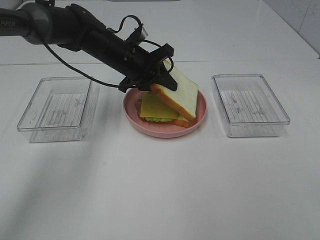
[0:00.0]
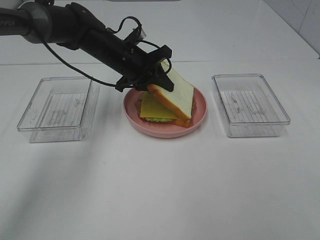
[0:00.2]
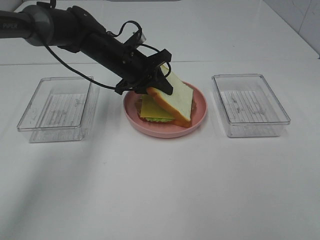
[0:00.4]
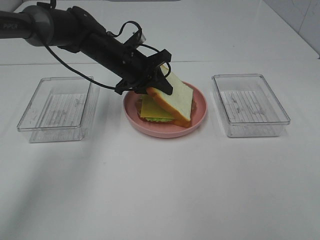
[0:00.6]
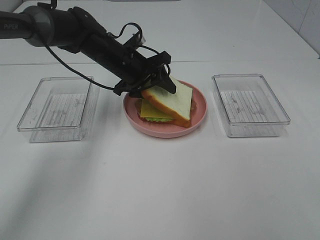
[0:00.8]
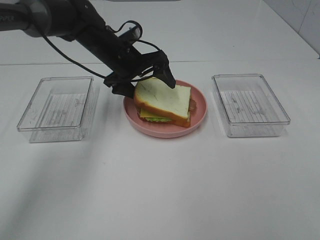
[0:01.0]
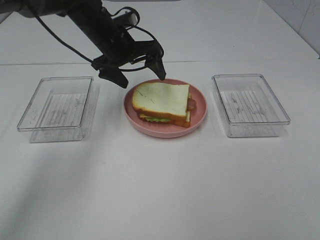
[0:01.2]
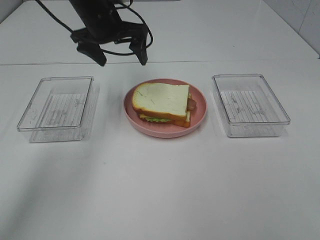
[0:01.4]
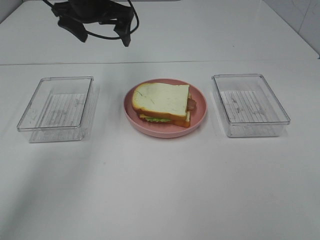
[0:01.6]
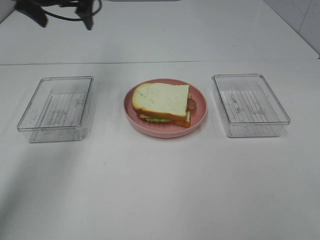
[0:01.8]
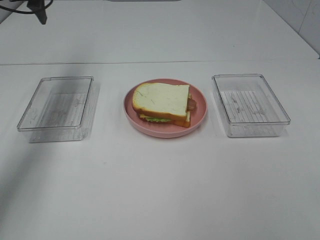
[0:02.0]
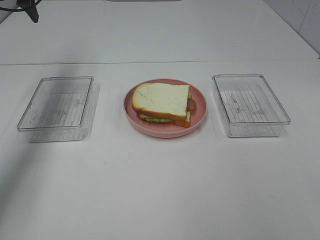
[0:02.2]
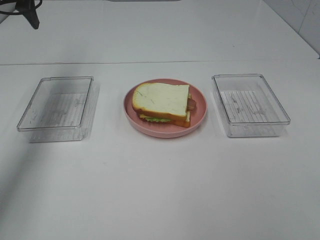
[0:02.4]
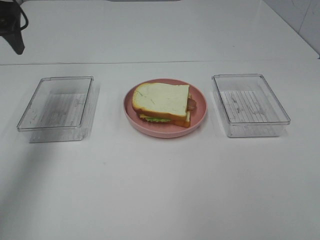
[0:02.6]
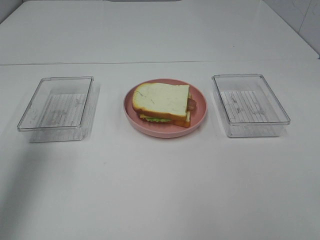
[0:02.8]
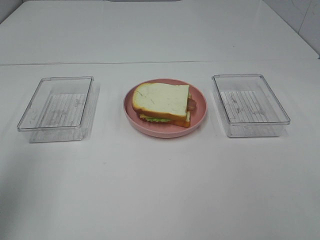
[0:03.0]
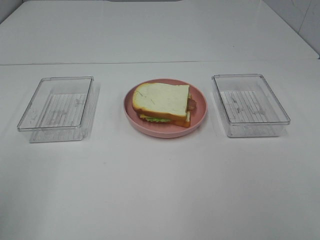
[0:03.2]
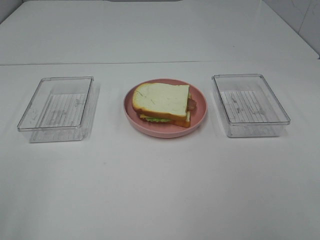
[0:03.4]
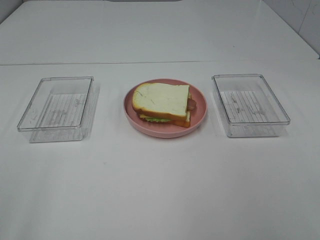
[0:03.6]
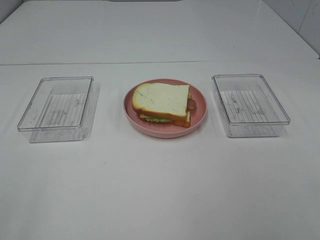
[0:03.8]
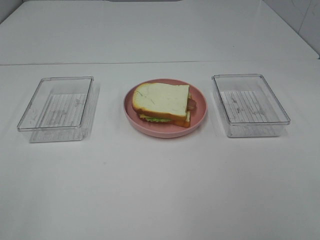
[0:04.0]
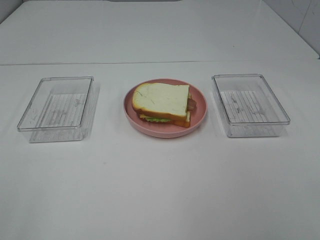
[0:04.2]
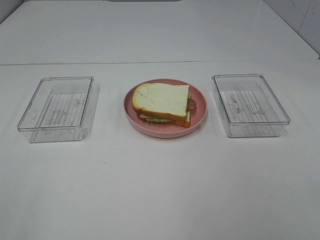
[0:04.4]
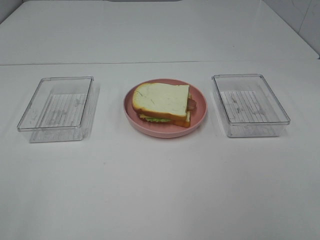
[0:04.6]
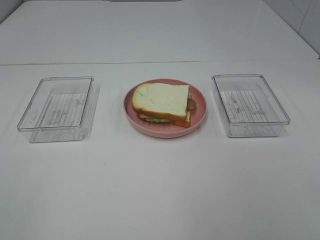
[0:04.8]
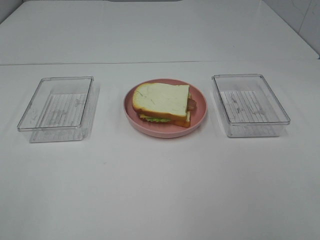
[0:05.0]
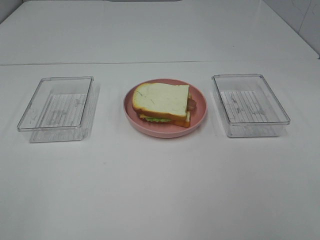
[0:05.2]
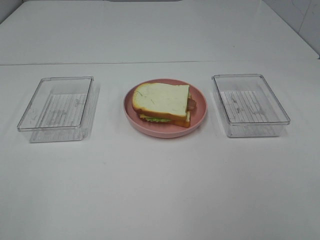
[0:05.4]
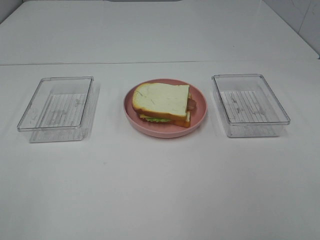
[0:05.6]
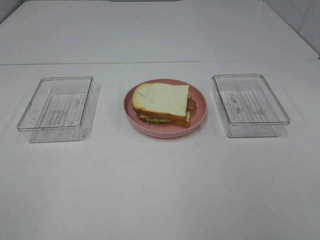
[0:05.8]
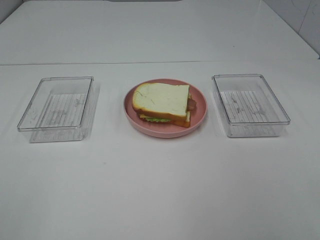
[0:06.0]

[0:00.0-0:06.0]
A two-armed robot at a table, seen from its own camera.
Task of the whole recording: Make sandwiches.
0.0 to 1.6 s: The left gripper travels upward and to the left by some 15 cm, and opens up.
1.6 to 3.0 s: The left gripper is displaced backward and to the left by about 35 cm.
3.0 to 4.4 s: The left gripper shifts about 15 cm backward.

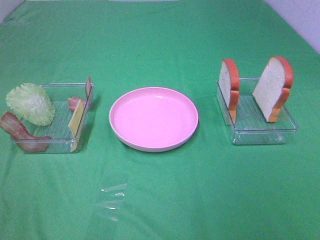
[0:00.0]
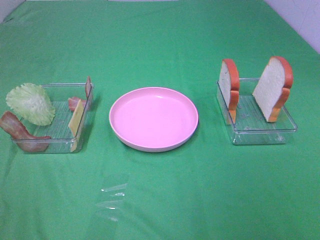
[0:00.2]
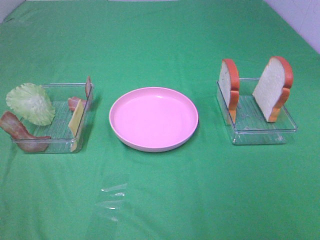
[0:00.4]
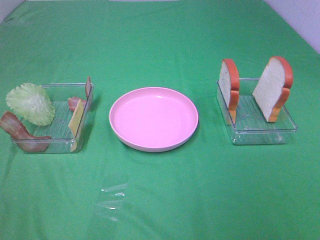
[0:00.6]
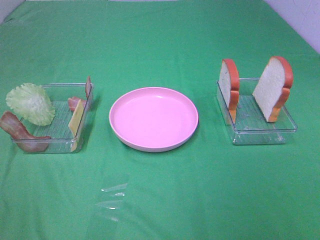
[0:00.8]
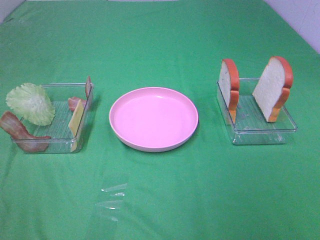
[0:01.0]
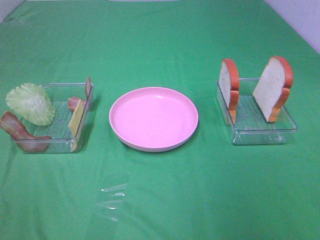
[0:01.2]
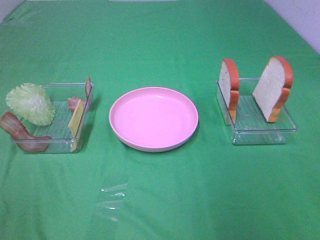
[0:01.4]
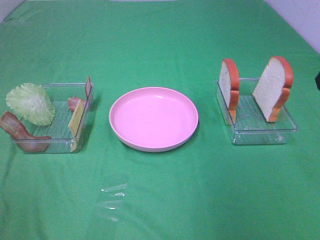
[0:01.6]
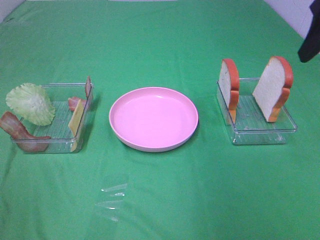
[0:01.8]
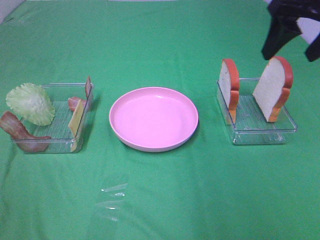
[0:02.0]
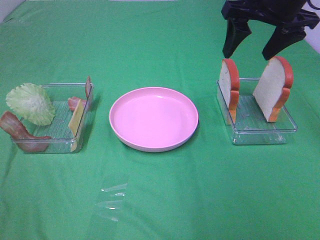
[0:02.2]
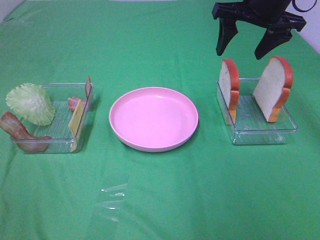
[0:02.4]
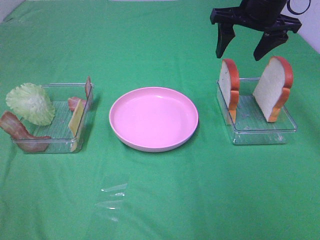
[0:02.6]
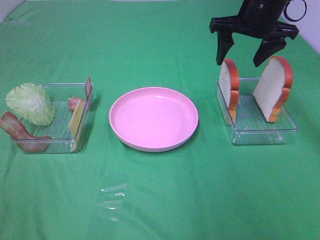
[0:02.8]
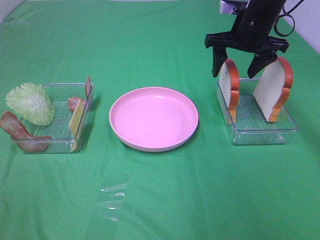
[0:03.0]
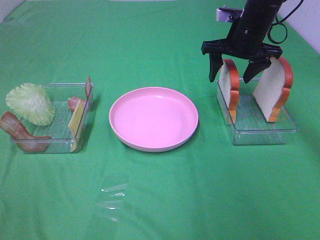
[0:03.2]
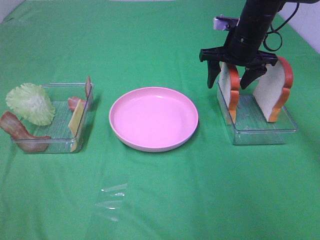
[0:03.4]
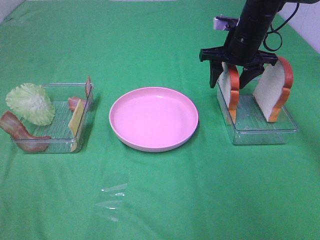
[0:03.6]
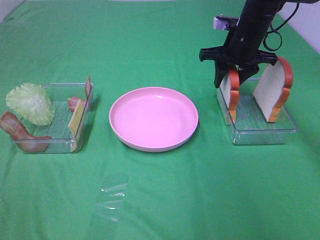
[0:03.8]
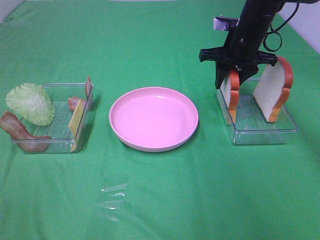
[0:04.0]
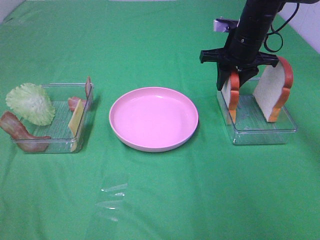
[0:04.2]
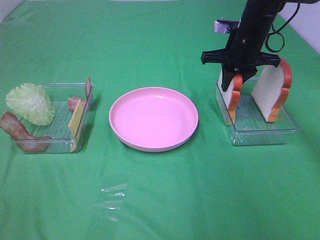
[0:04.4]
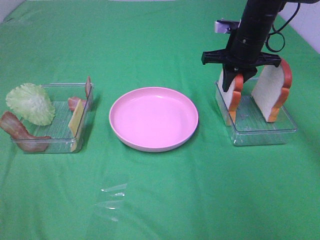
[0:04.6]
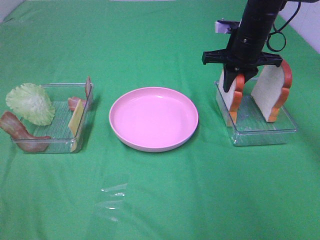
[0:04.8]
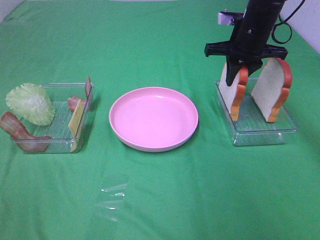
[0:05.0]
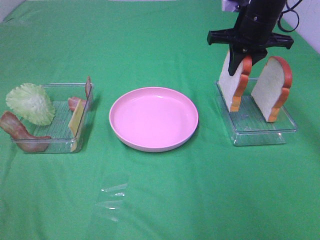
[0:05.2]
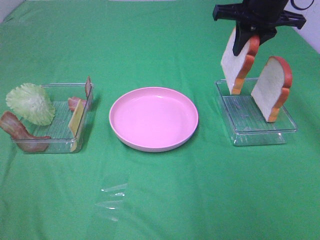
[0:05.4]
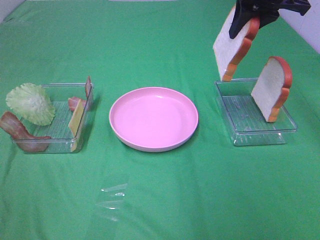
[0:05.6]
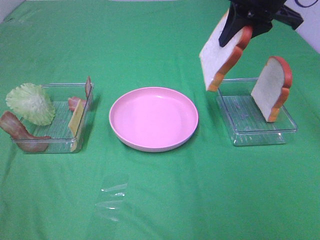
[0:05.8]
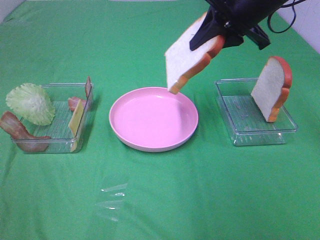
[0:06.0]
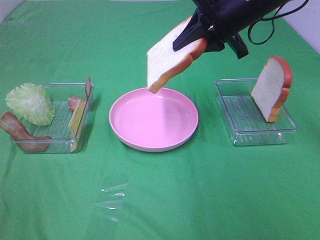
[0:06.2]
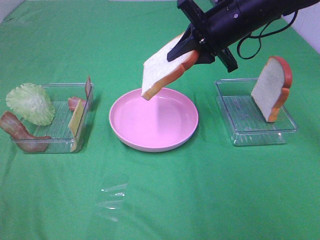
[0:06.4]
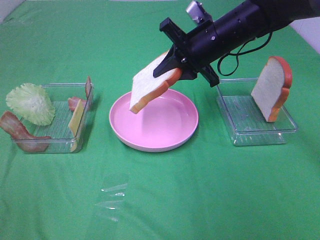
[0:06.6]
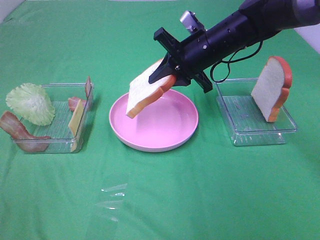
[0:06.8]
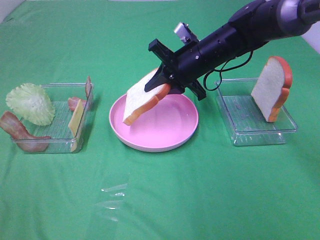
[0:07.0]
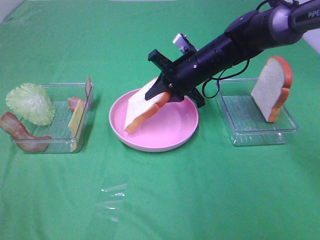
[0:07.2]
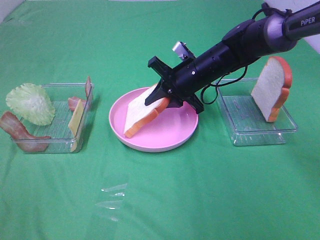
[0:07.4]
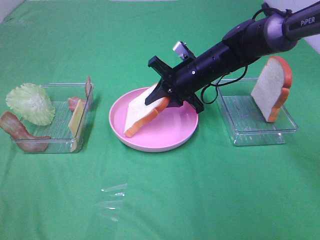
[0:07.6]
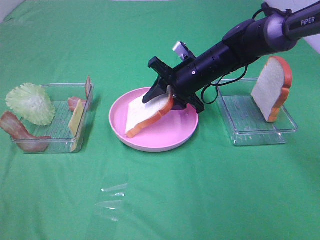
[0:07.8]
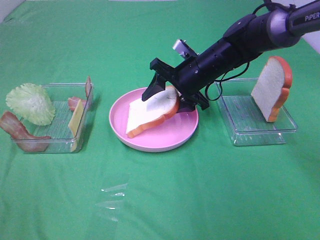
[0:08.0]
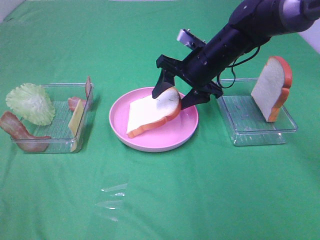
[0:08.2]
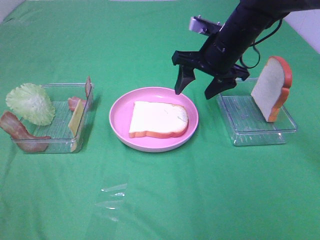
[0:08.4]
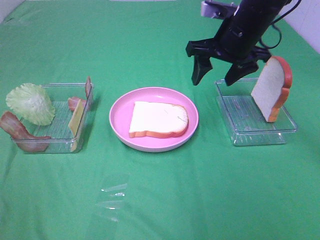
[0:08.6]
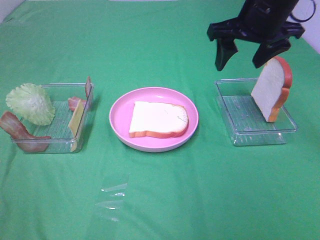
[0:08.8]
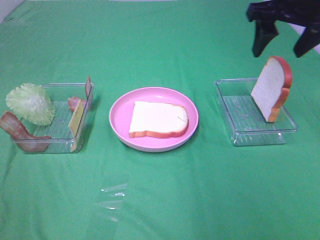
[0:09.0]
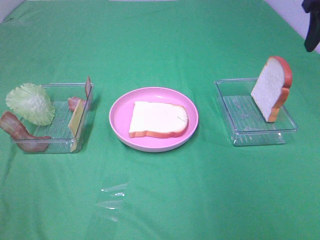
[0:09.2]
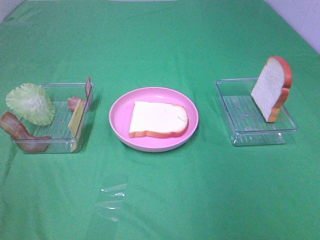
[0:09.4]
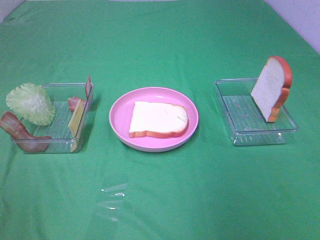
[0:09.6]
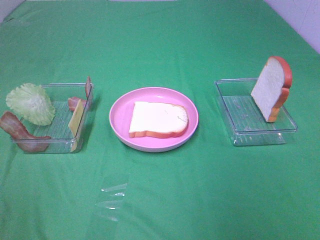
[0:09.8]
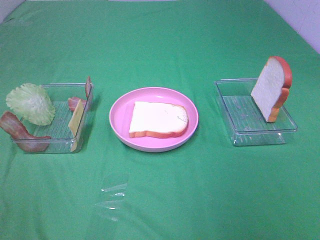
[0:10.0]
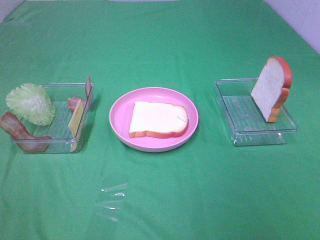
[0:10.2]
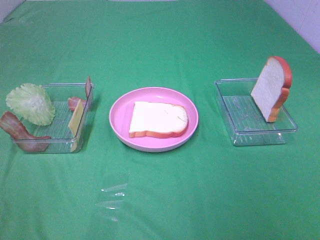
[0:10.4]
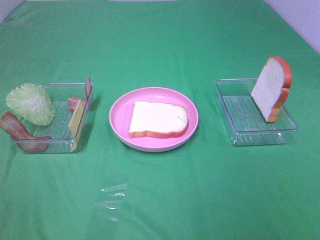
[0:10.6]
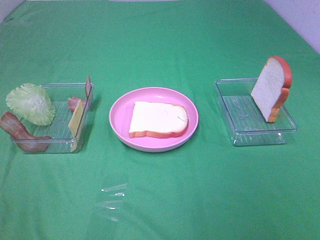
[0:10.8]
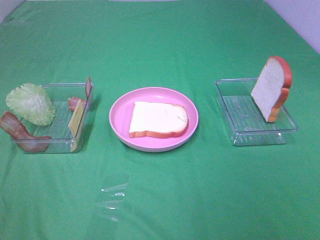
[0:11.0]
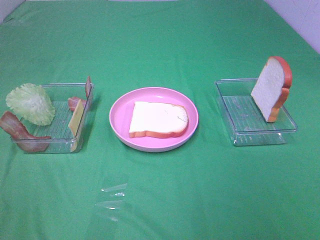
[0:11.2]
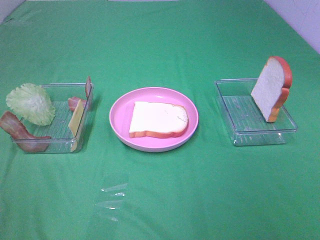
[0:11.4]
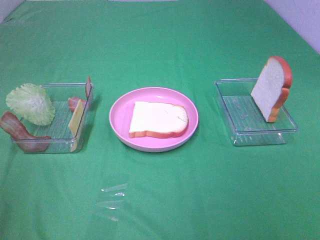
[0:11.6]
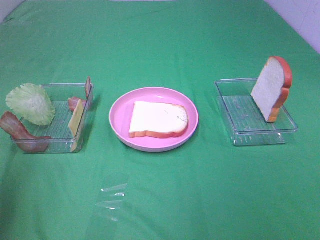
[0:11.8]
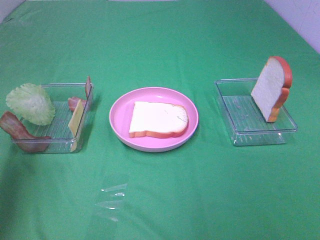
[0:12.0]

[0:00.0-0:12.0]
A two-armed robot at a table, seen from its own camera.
Task of the whole recording: Make sandwiches.
Step, 0.0 to 4.6 s: Right hand:grab the bread slice.
Step, 4.8 to 8.2 s: Right hand:place the bread slice on the plate.
1.6 to 3.0 s: The right gripper is displaced forward, downward and to the left by some 25 cm.
3.0 to 4.4 s: The right gripper closes.
4.4 to 6.0 s: The right gripper is displaced upward and backward by approximately 15 cm.
6.0 to 7.6 s: The right gripper goes about 15 cm downward.
7.6 to 9.0 s: The right gripper shifts about 25 cm upward and to the right, and opens.
9.0 to 10.4 s: The right gripper heads backward, covering some 35 cm.
10.4 to 12.0 s: The left gripper goes some 25 cm forward.

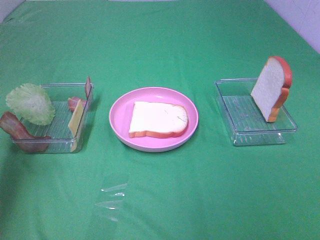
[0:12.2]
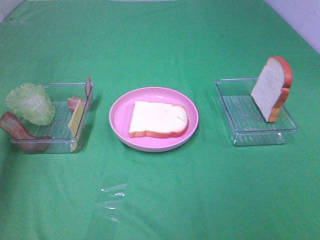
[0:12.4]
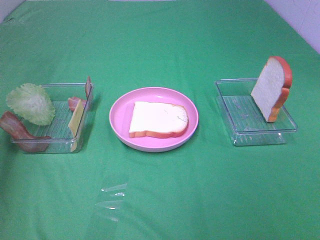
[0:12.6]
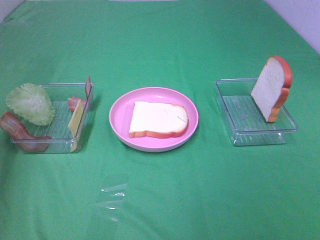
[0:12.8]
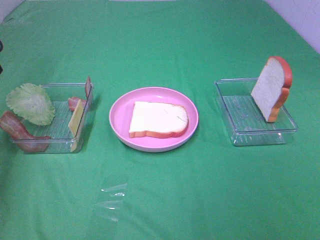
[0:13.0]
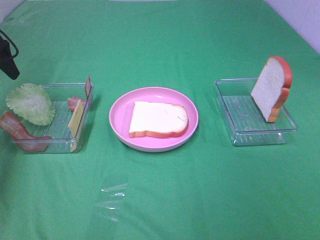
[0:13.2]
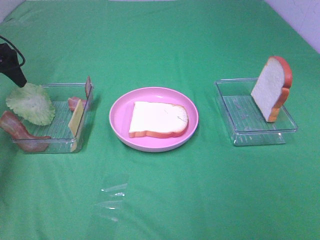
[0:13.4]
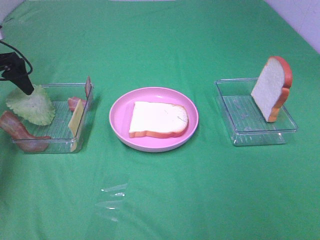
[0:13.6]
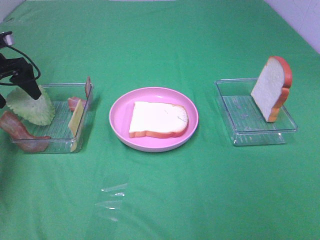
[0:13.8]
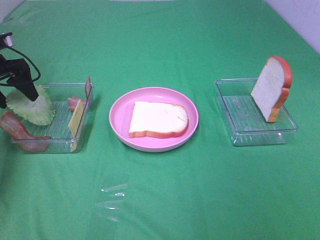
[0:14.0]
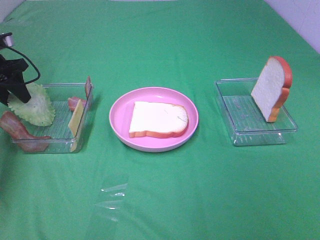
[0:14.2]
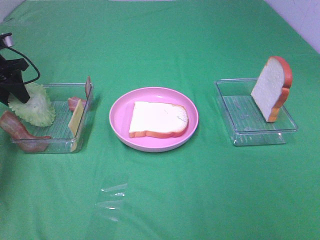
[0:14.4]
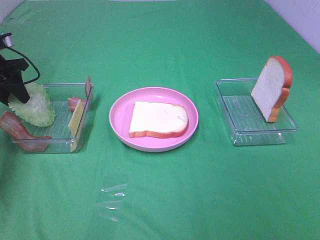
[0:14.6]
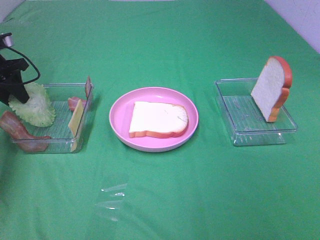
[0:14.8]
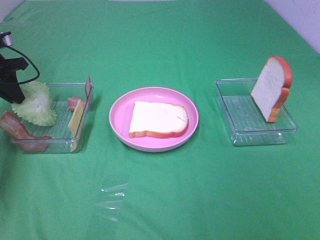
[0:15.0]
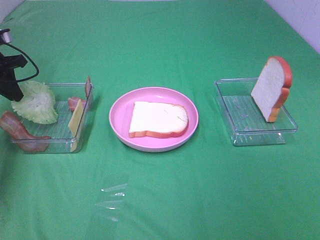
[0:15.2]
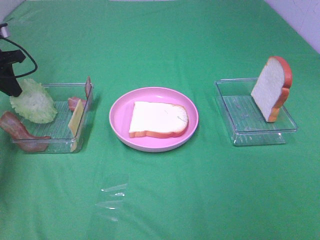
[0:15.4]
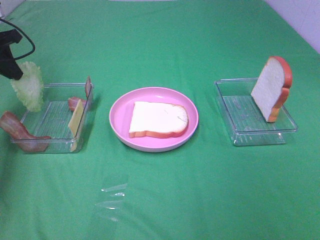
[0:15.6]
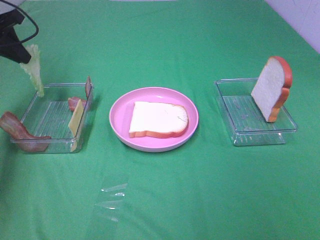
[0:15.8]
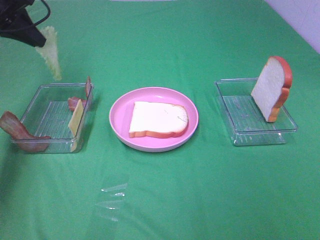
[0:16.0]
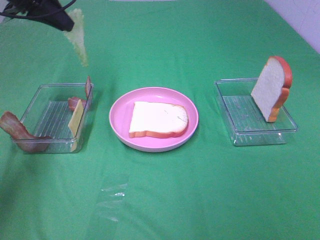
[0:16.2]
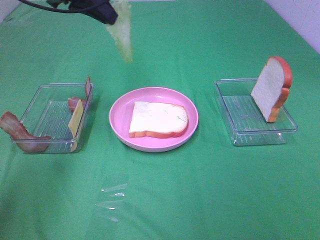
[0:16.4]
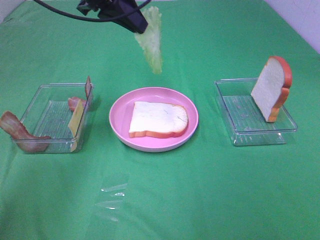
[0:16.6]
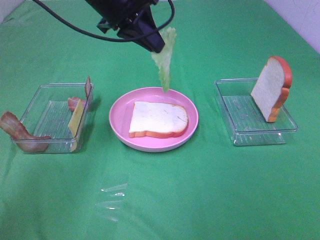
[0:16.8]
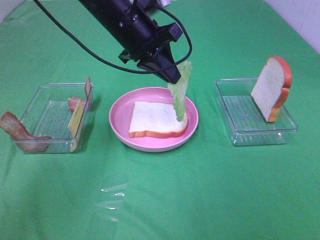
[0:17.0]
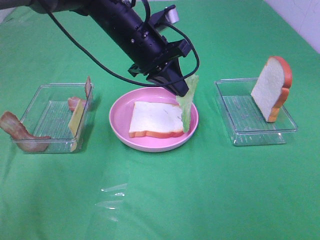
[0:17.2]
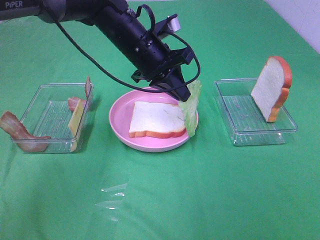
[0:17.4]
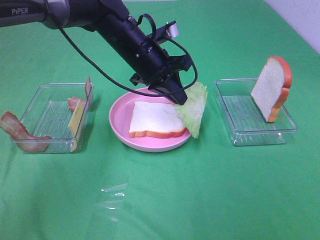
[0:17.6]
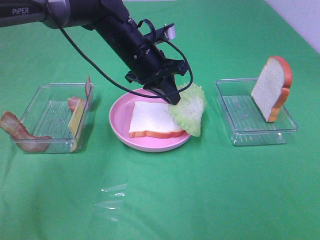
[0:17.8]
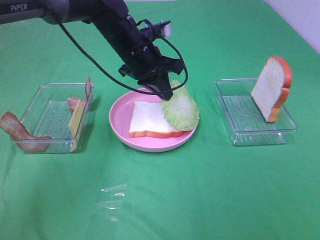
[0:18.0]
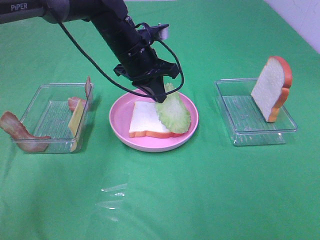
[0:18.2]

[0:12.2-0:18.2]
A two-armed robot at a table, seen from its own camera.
Task of the whole recording: Make sandwiches.
Step, 12.2 to 15.0 s: Left hand:grab the lettuce slice.
12.2 to 13.8 s: The left gripper travels downward and forward by about 25 cm.
13.8 to 15.2 s: The left gripper closes up.
15.2 to 16.6 s: The left gripper is displaced to the right and upward by approximately 30 cm.
16.6 to 18.2 s: The left gripper goes roughly 15 cm downward and to the right.
